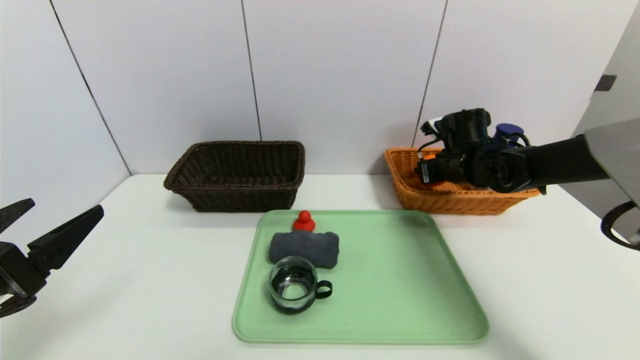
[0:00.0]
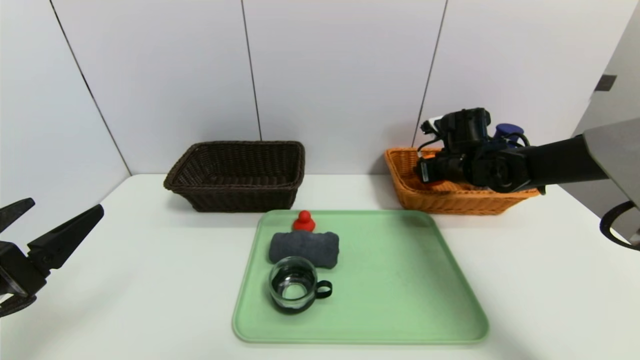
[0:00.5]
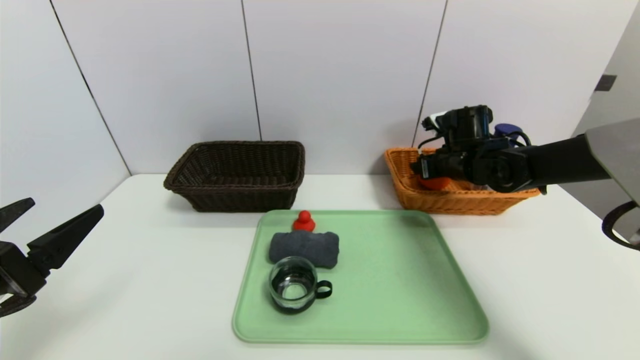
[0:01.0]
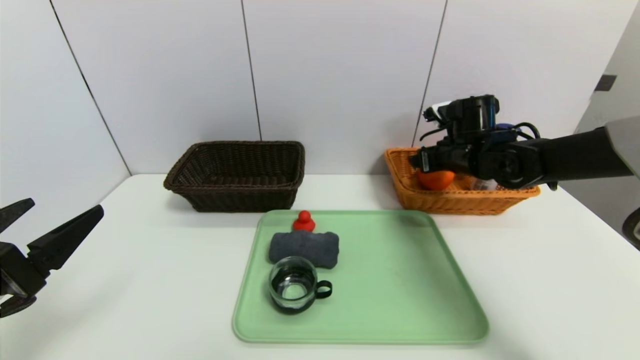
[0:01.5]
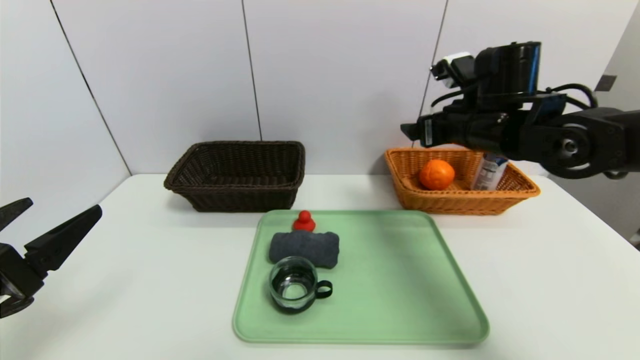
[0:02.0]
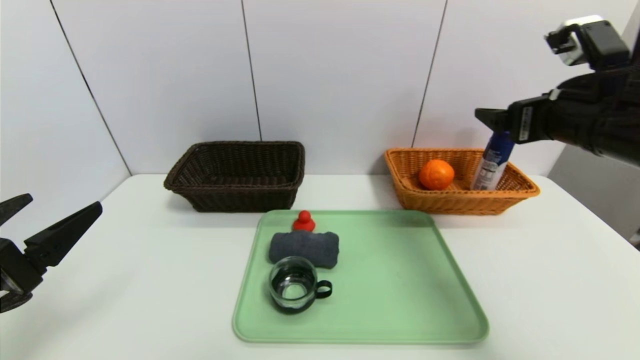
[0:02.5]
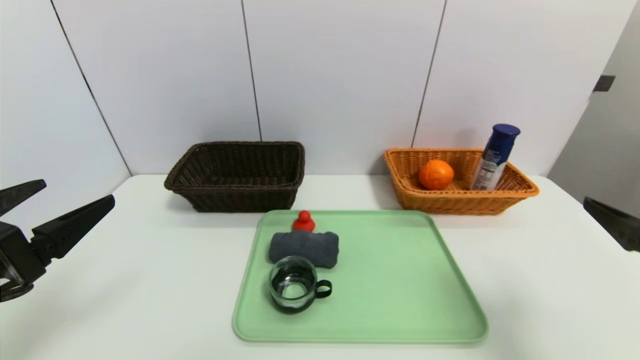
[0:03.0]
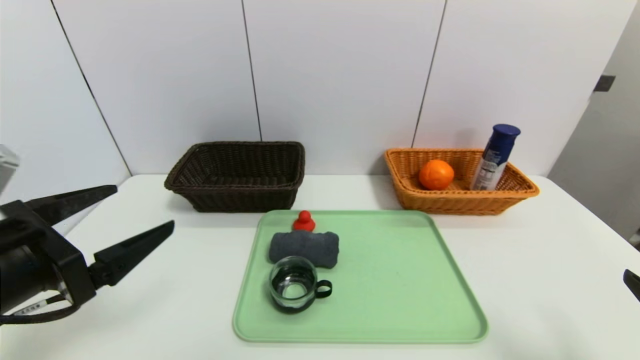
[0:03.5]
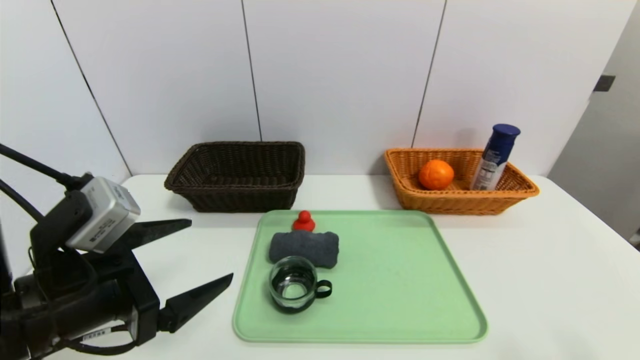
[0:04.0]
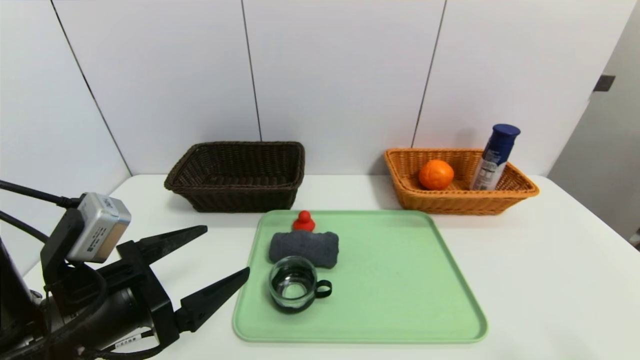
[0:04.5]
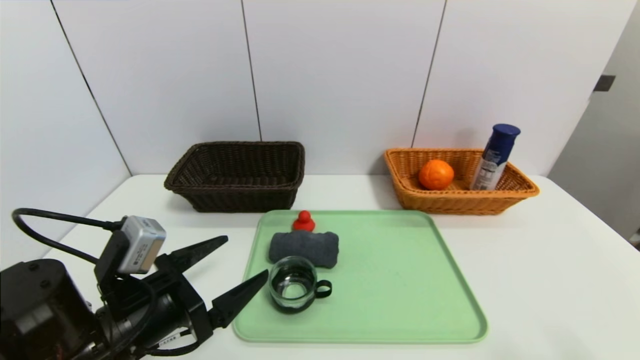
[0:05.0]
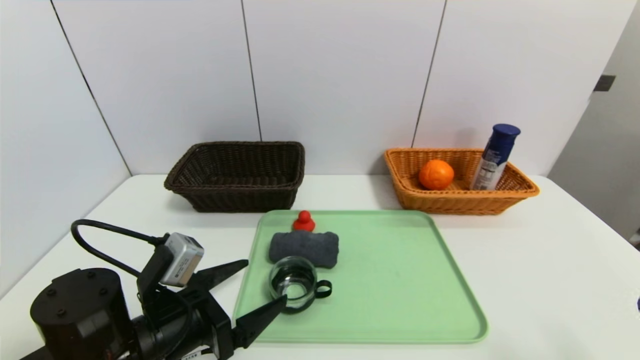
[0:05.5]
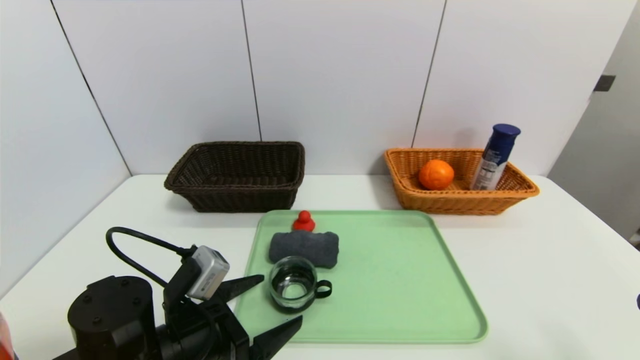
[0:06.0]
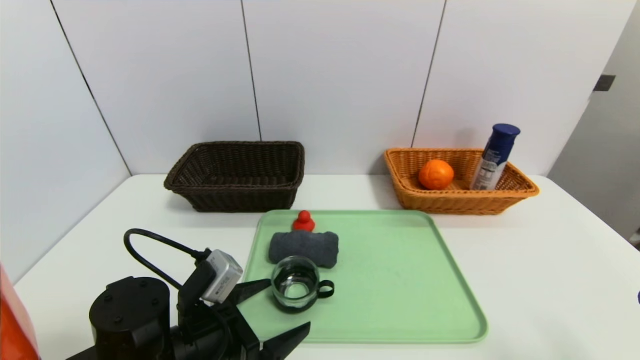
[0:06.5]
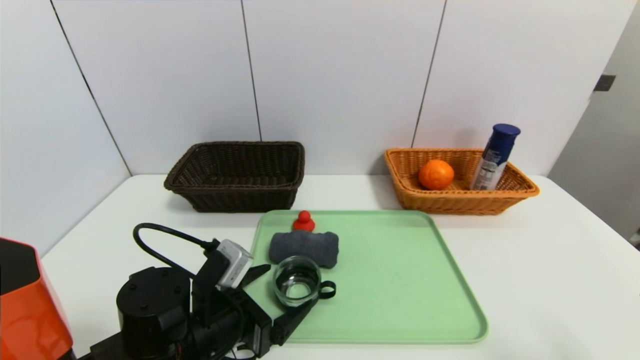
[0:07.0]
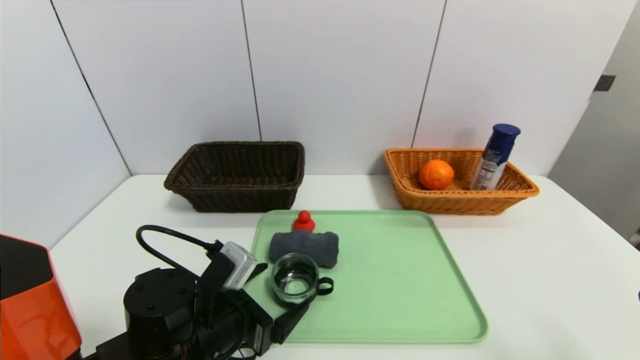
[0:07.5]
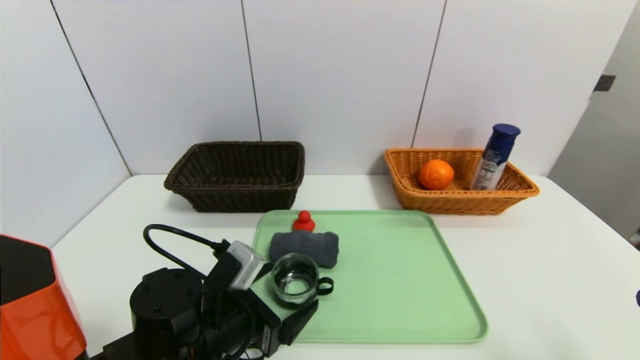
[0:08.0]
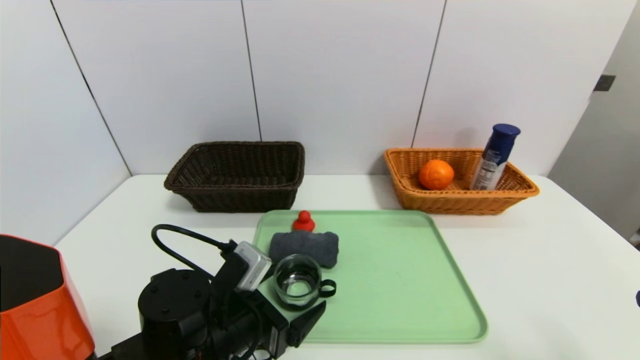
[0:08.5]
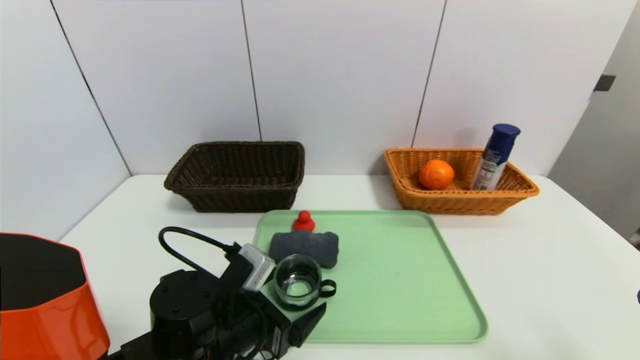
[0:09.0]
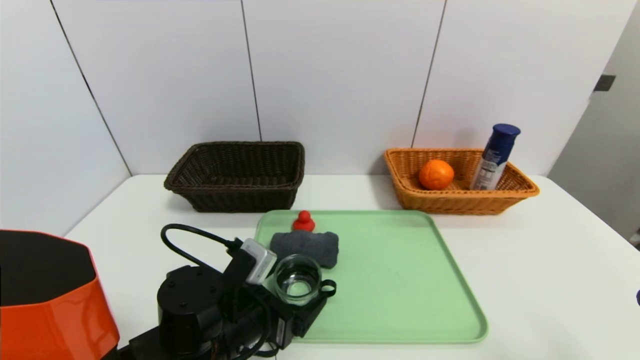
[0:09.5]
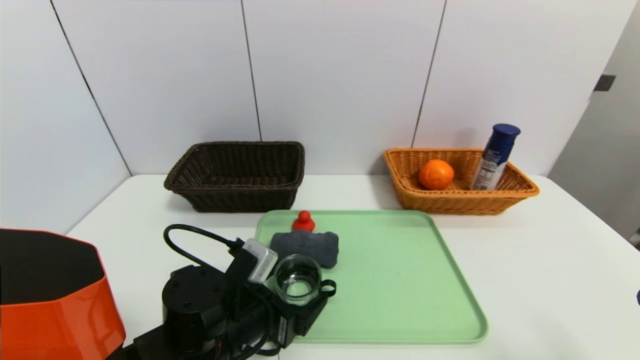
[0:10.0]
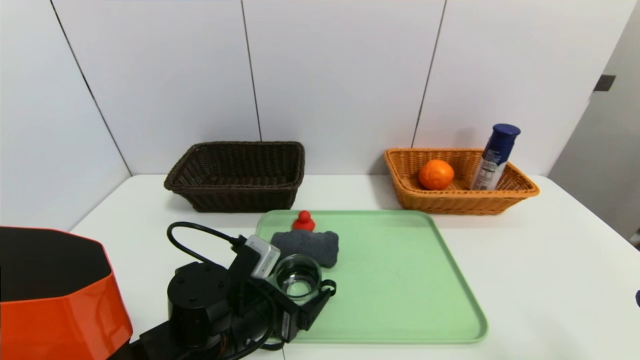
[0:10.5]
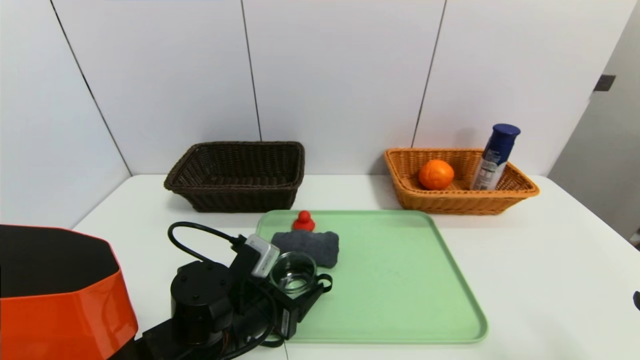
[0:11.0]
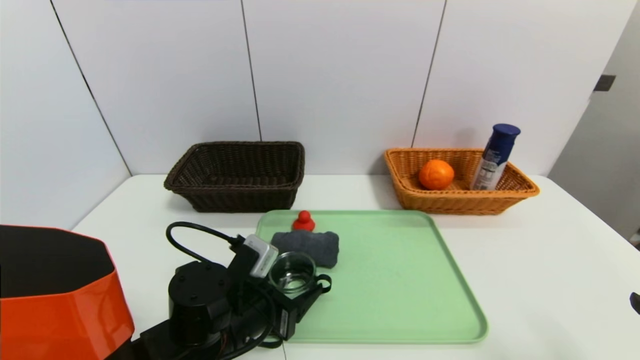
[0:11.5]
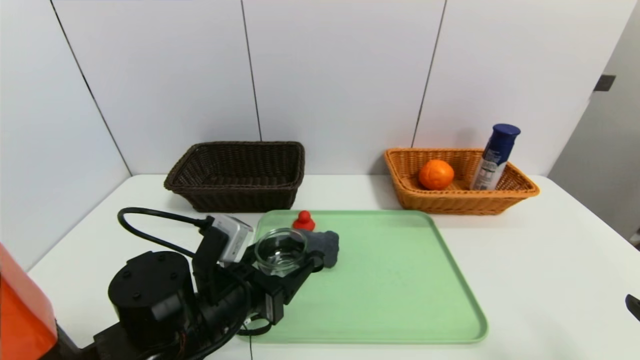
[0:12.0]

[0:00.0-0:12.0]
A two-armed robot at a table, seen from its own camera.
Task of the whole recording: place the food in the right basket with the right gripper, and place the non food items in the left basket with the left gripper.
0:00.0 to 0:02.0: The right gripper goes roughly 15 cm upward and backward, and opens up.
0:02.0 to 0:04.0: The left gripper goes approximately 10 cm to the right, while the right gripper goes approximately 30 cm backward.
0:04.0 to 0:06.0: The left gripper travels downward and to the right by some 10 cm.
0:06.0 to 0:10.0: The grippers make only small movements.
0:10.0 to 0:12.0: The grippers move only a little.

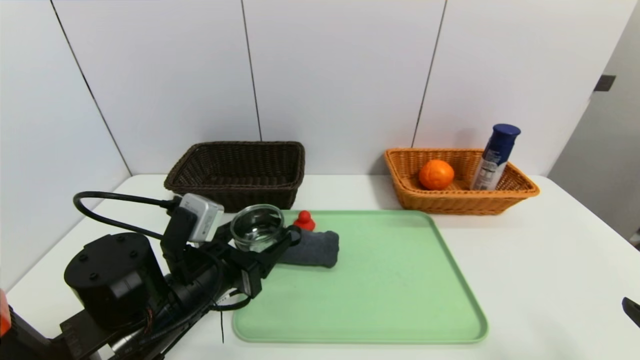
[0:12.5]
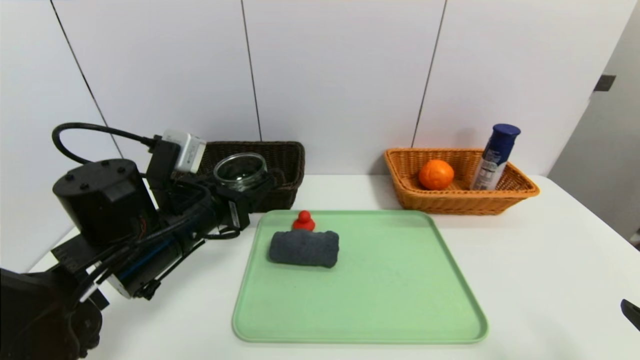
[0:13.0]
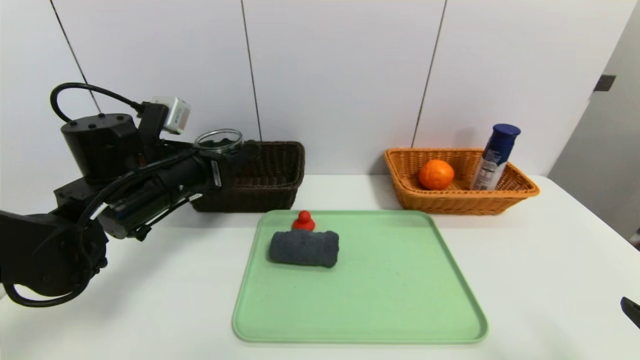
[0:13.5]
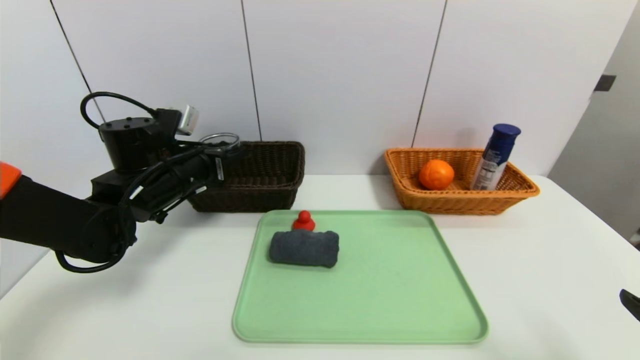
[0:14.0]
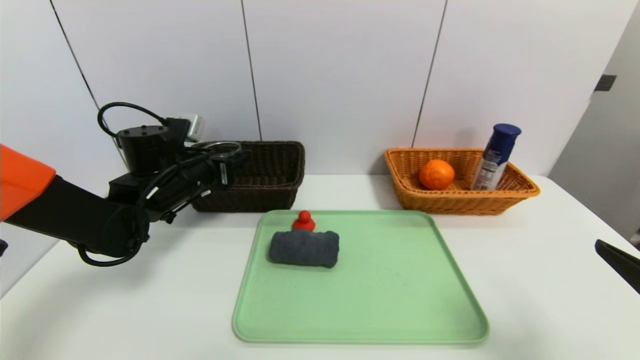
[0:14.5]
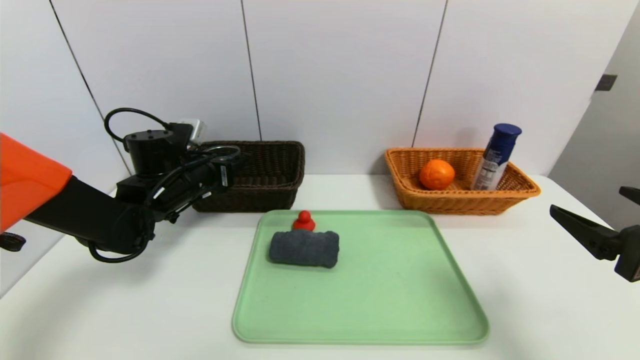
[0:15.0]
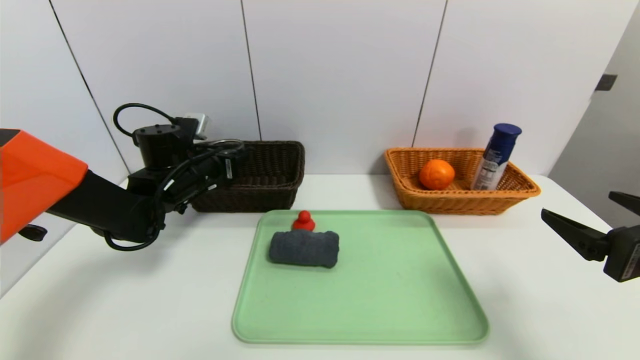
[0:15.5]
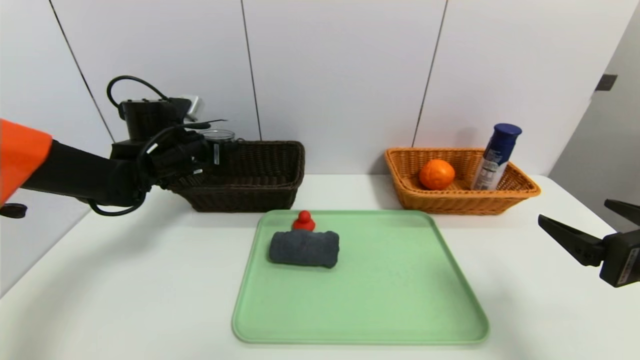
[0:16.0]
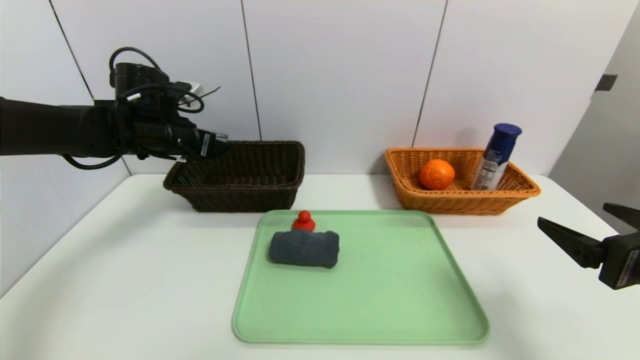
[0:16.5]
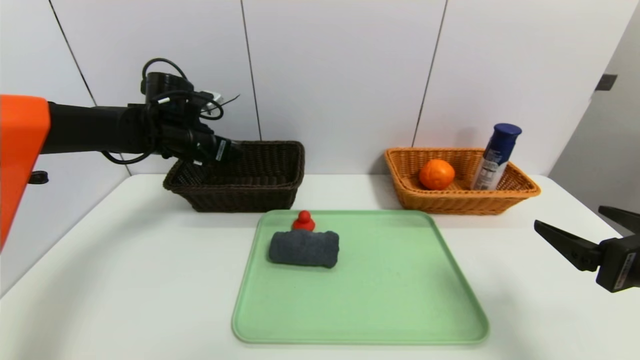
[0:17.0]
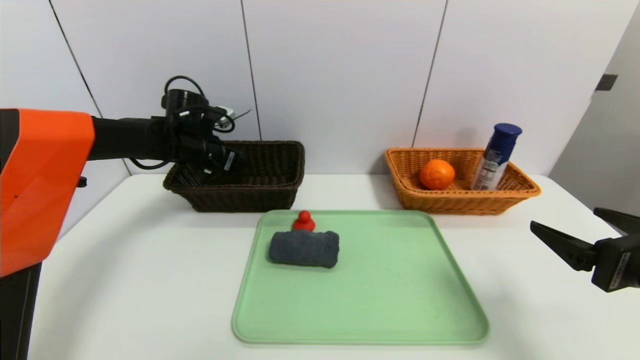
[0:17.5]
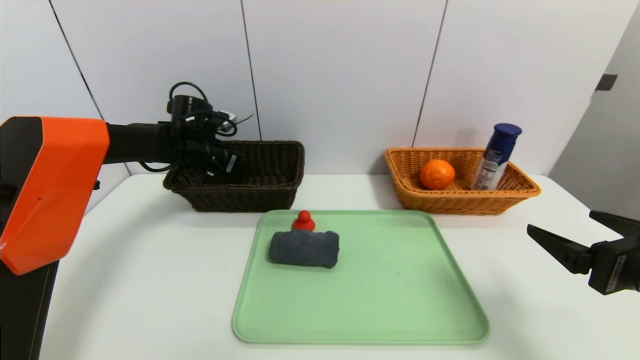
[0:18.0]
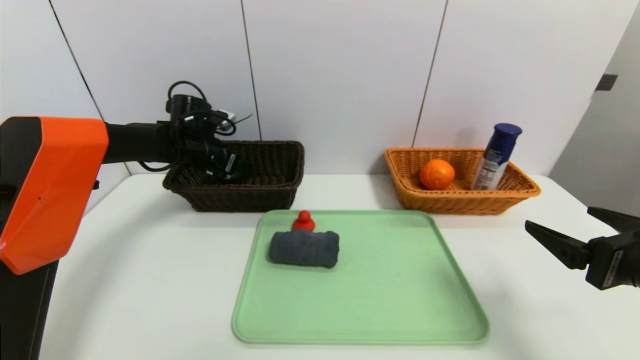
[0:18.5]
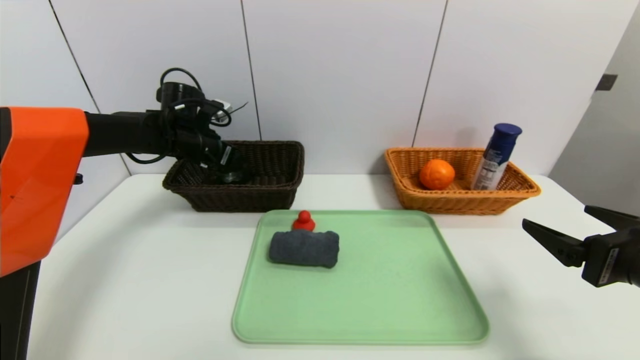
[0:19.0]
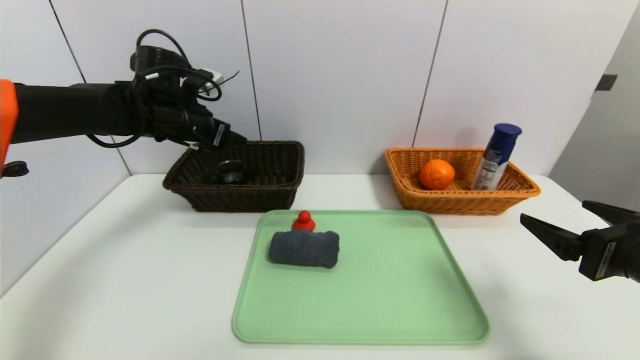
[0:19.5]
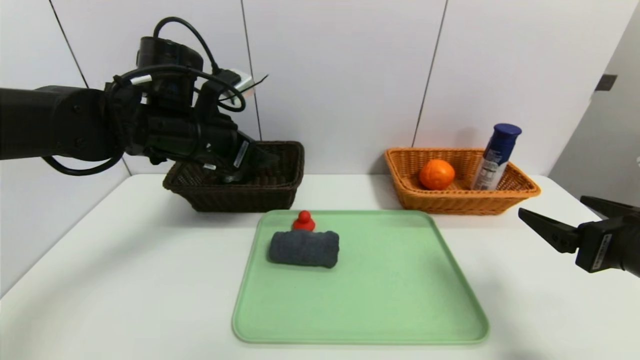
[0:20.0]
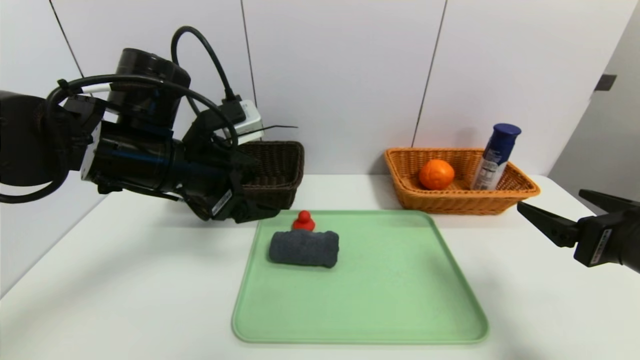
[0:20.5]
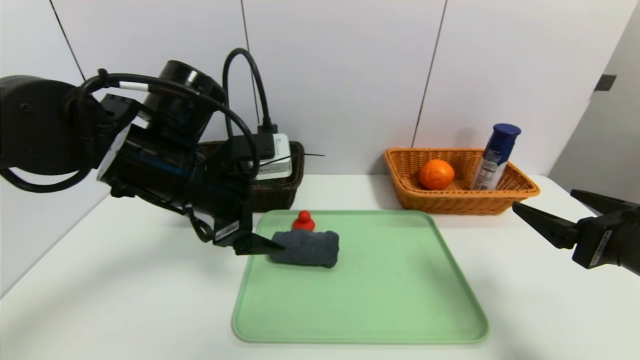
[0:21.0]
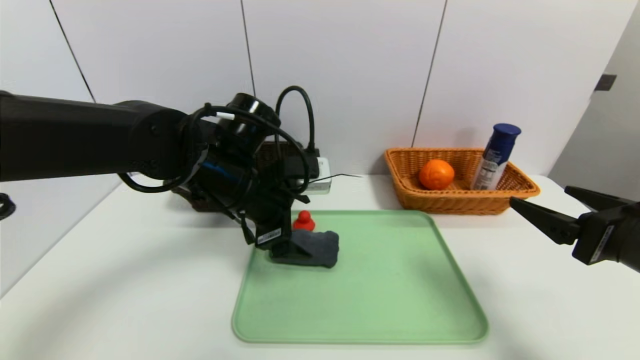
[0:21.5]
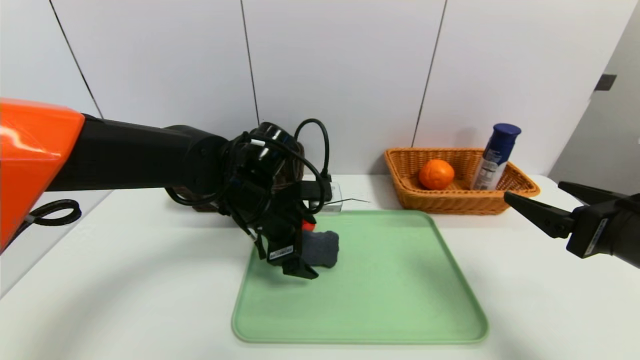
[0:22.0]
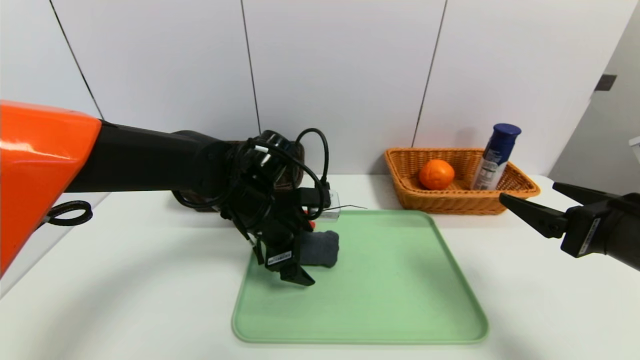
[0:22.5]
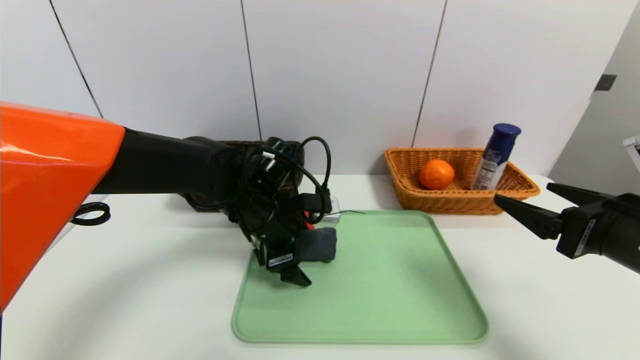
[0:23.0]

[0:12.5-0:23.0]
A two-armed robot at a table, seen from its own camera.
Task of the whole recording: place the food in the right basket with the right gripper, and place the non food items in the left basket with the left gripper.
Step, 0:12.5 to 0:19.0: Grasp the black glass cup and put it in the left basket.
0:12.5 to 0:14.5: The right gripper changes place by approximately 5 cm, while the left gripper moves forward and to the left, some 20 cm.
0:14.5 to 0:16.5: The right gripper heads forward, covering about 5 cm; the left gripper is displaced upward by some 5 cm.
0:16.5 to 0:19.0: The left gripper heads forward, covering about 5 cm.
0:19.0 to 0:21.0: The left gripper moves backward and to the right, roughly 20 cm.
0:21.0 to 0:23.0: The left gripper is displaced downward, forward and to the right by some 10 cm.
